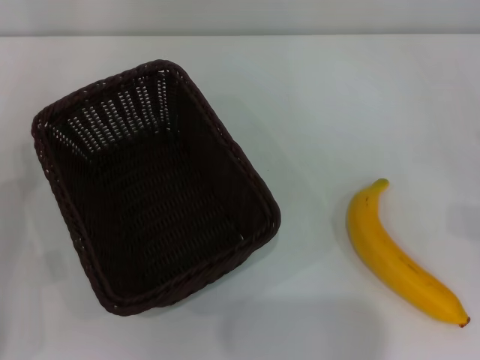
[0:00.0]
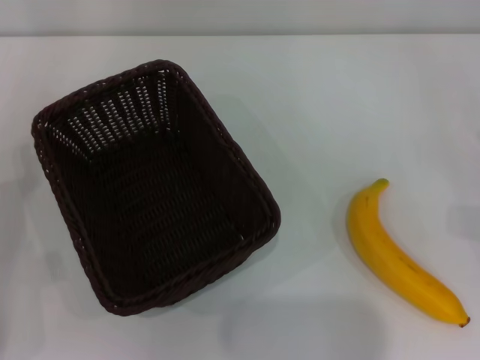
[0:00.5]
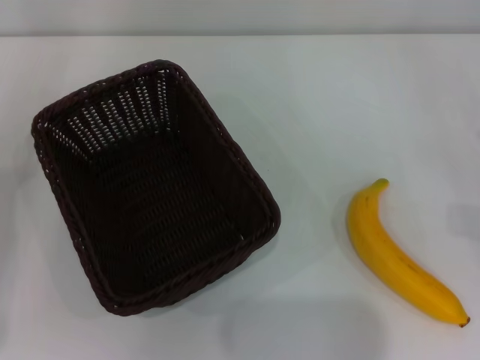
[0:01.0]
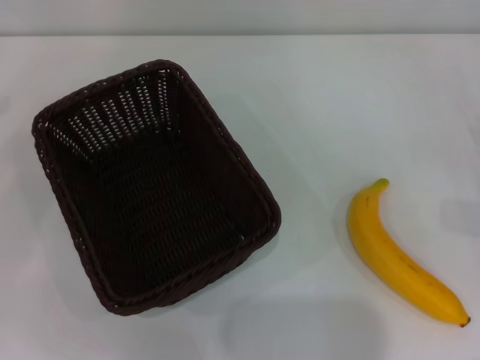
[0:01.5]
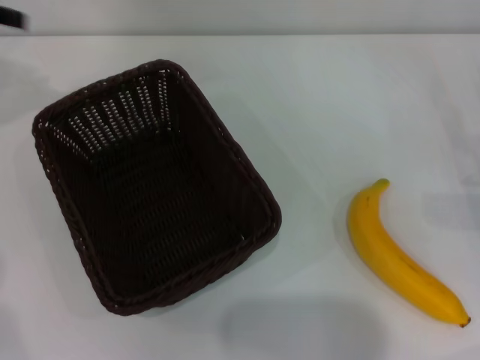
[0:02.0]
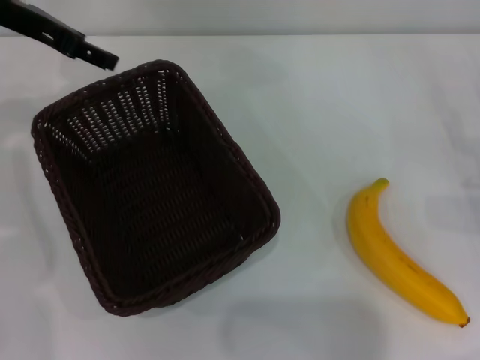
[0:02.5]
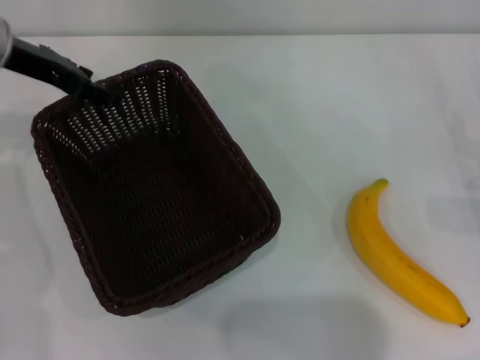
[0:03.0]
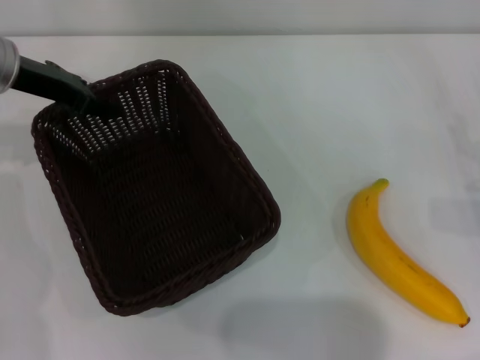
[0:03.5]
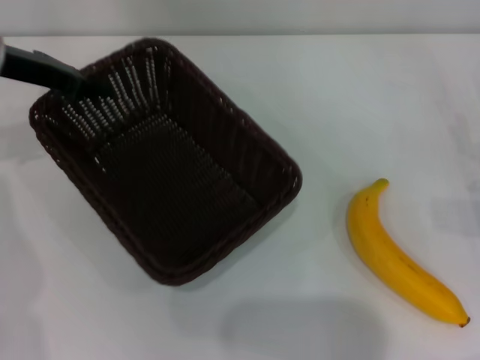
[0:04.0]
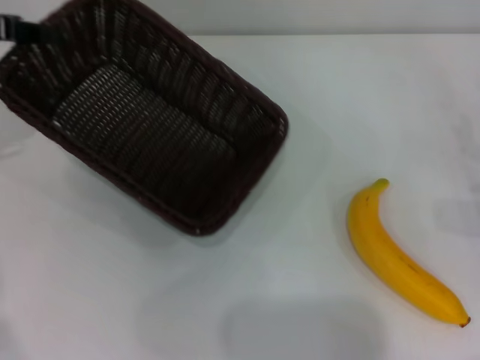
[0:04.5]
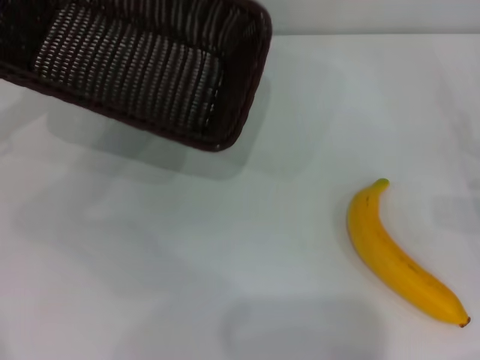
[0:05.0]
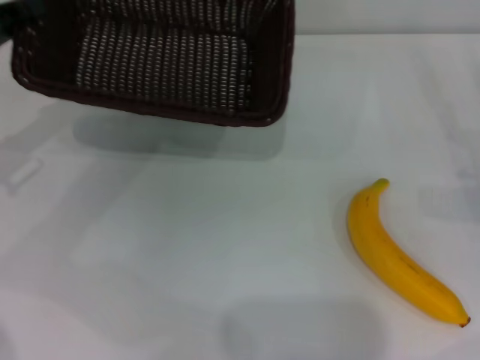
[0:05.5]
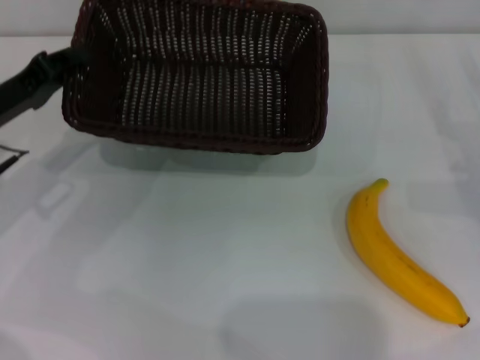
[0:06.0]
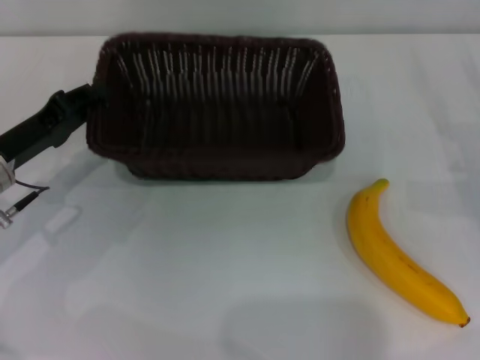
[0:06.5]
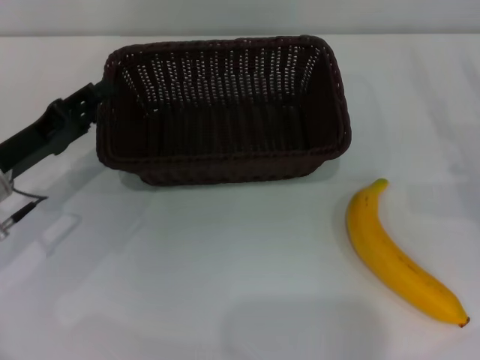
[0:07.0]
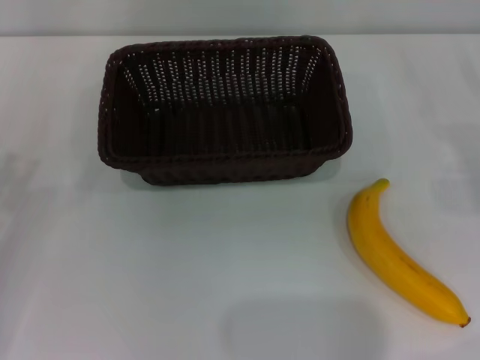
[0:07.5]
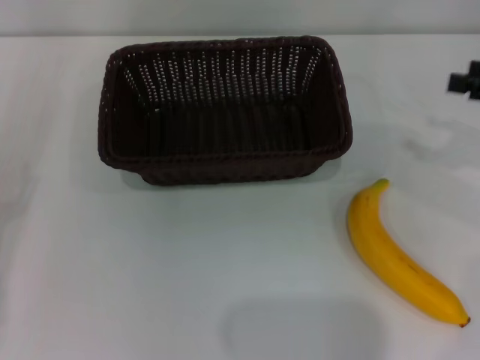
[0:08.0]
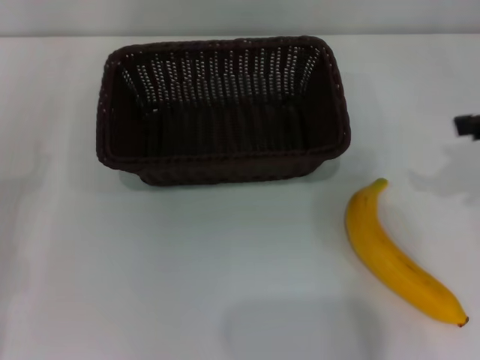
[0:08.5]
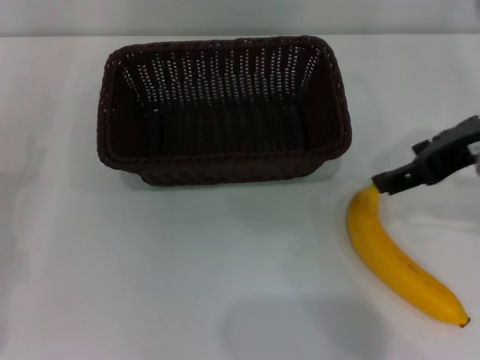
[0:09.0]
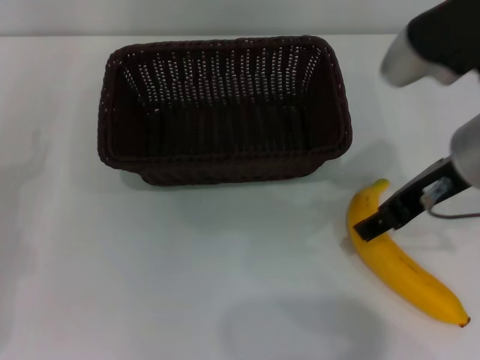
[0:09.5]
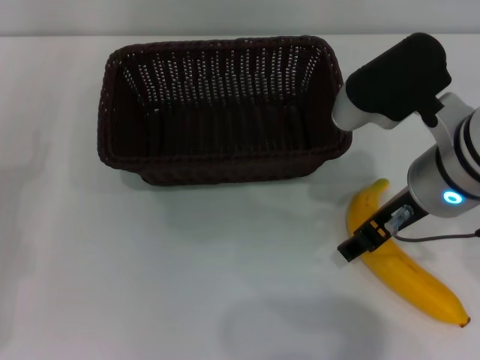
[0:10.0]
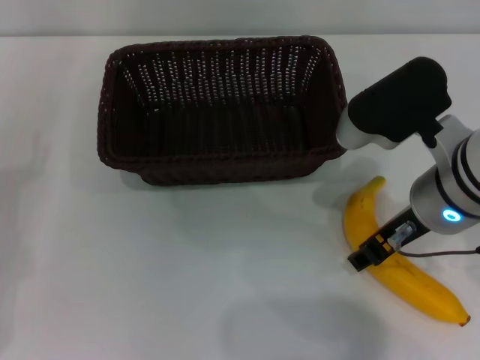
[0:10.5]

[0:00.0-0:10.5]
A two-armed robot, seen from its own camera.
Step, 0:00.0 to 0:04.0: Pick up the dark basket with the left gripper.
Step, 0:04.5 to 0:07.0: Place the dark basket in the center of view with the left gripper.
0:00.0 to 0:02.0: The left gripper shifts roughly 30 cm upward and forward.
0:02.0 to 0:04.0: The left gripper is displaced downward and to the right by approximately 10 cm, and closes.
0:04.0 to 0:06.5: The left gripper heads backward and downward, covering roughly 15 cm.
0:06.5 to 0:08.5: The right gripper shifts about 20 cm upward. Meanwhile the left gripper travels to the left and backward by roughly 15 cm, and opens up.
0:08.5 to 0:10.5: The right gripper is displaced to the left and downward by roughly 20 cm.

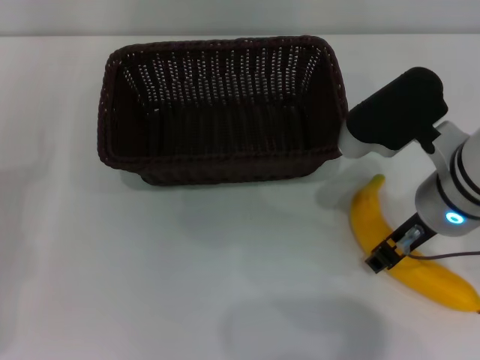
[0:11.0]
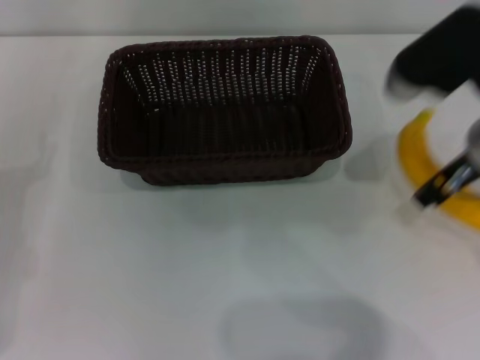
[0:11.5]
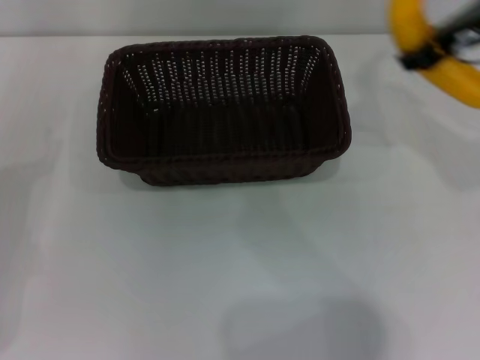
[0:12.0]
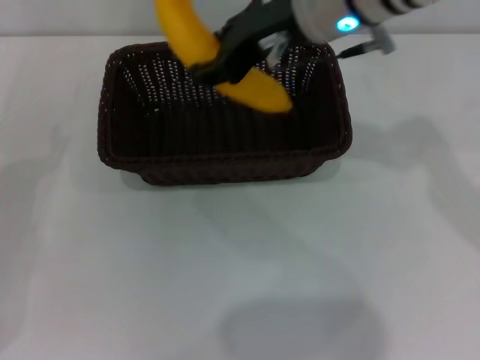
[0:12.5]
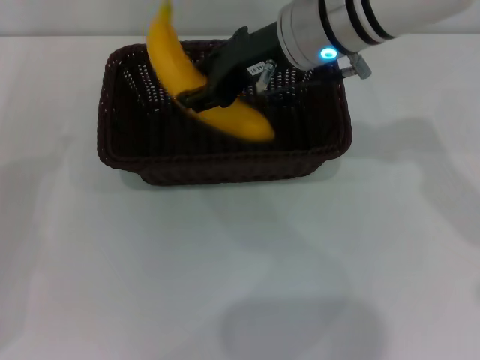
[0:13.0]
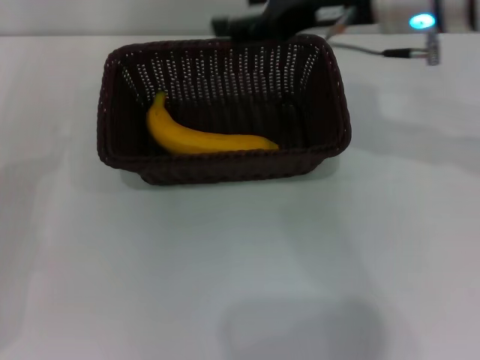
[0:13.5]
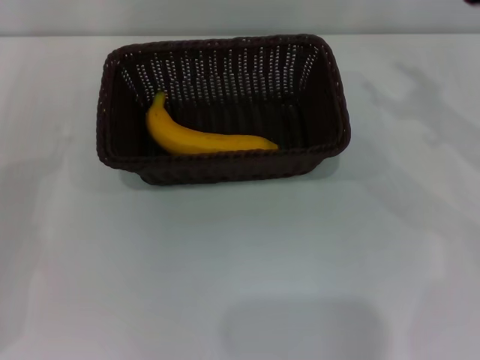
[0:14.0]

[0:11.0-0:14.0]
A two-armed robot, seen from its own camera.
Step, 0:12.0 to 0:13.5: Place the banana into the dark basket with the right gripper.
0:11.0 to 0:12.5: The right gripper moves upward, forward and to the left, approximately 15 cm.
0:12.5 to 0:14.0: The right gripper shifts some 25 cm to the right and downward, and opens up.
